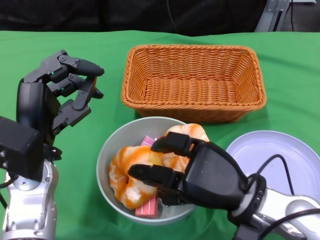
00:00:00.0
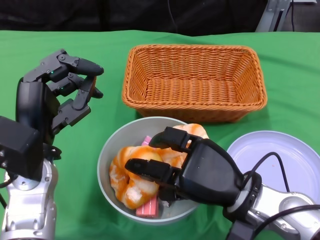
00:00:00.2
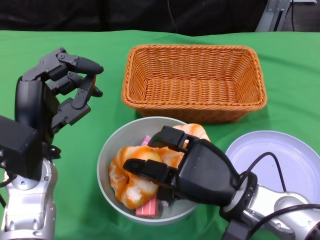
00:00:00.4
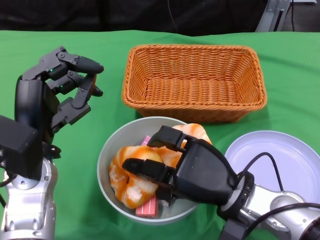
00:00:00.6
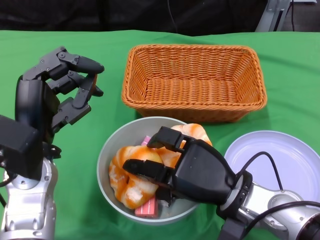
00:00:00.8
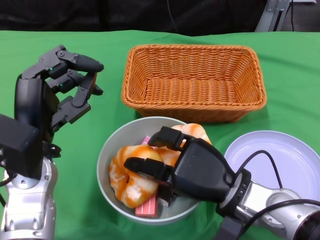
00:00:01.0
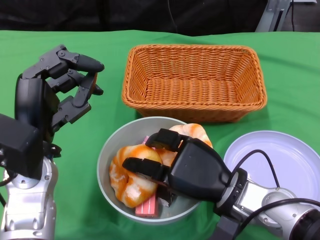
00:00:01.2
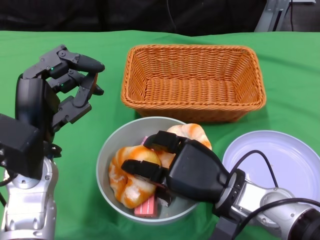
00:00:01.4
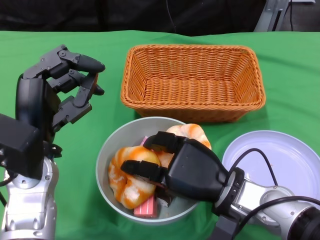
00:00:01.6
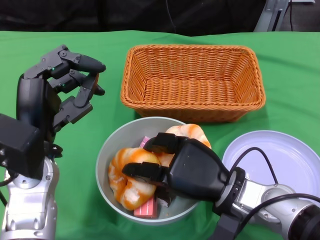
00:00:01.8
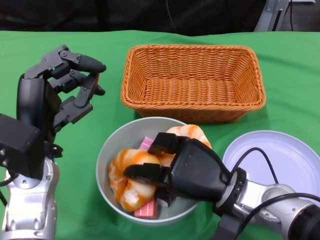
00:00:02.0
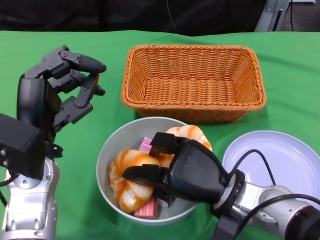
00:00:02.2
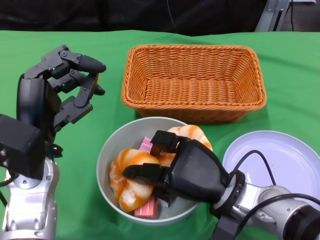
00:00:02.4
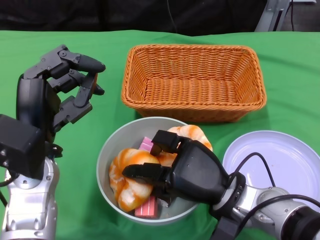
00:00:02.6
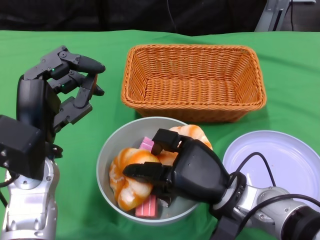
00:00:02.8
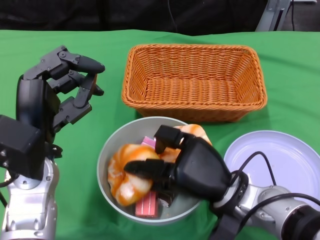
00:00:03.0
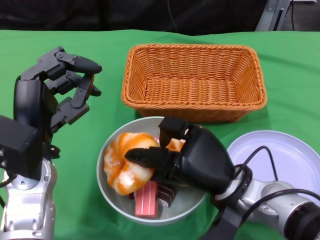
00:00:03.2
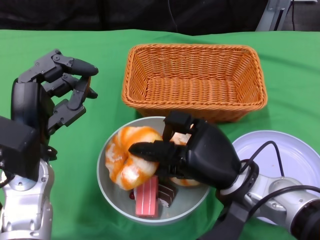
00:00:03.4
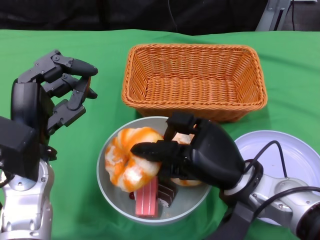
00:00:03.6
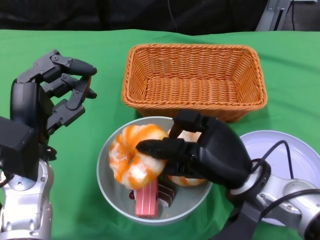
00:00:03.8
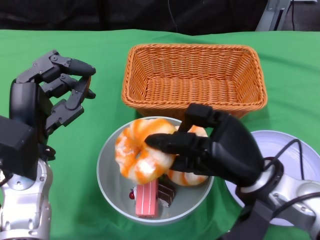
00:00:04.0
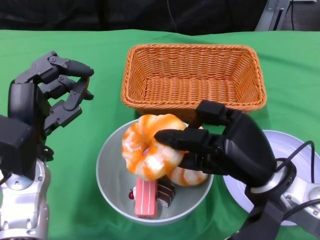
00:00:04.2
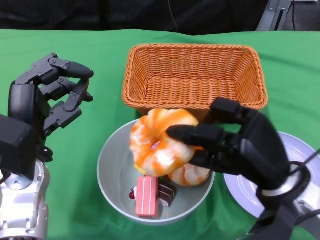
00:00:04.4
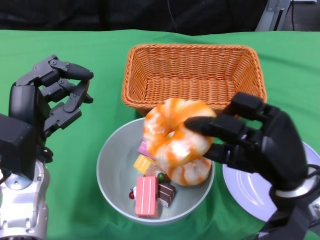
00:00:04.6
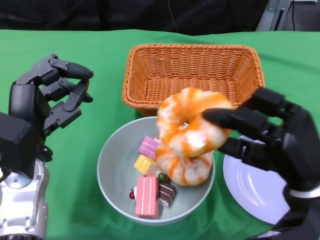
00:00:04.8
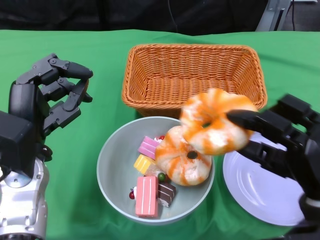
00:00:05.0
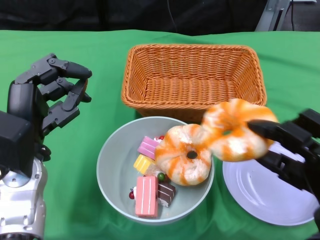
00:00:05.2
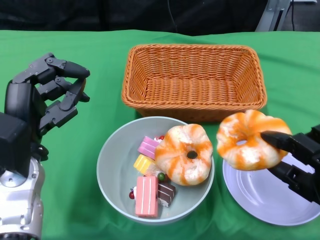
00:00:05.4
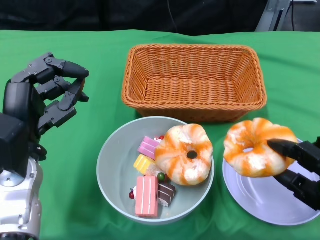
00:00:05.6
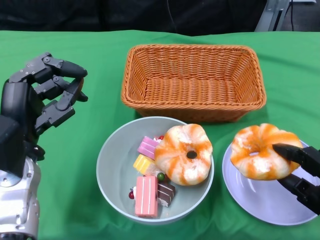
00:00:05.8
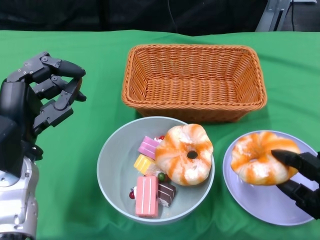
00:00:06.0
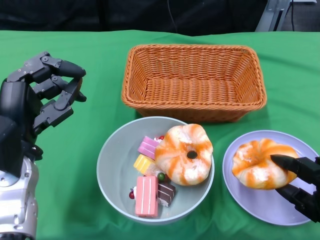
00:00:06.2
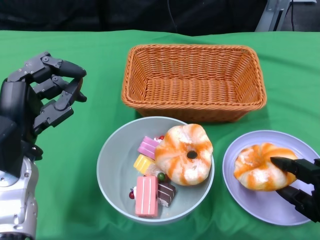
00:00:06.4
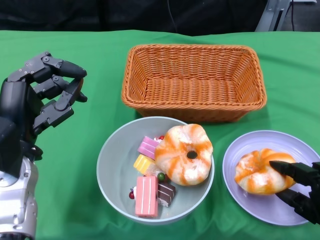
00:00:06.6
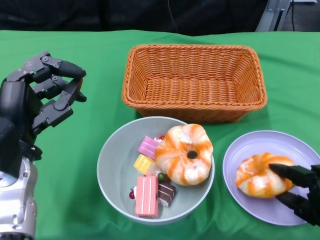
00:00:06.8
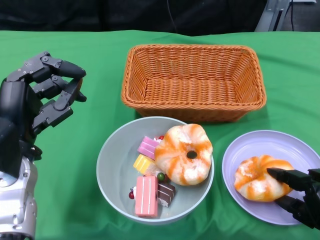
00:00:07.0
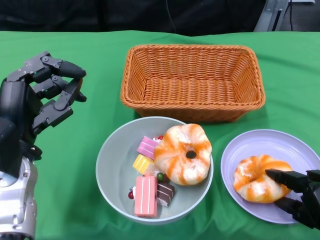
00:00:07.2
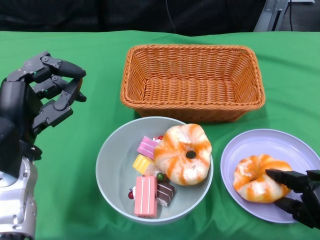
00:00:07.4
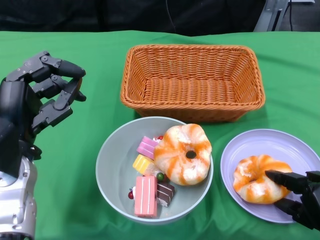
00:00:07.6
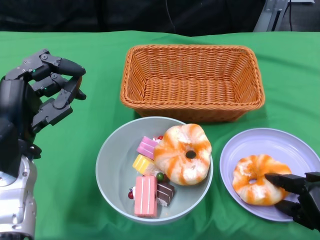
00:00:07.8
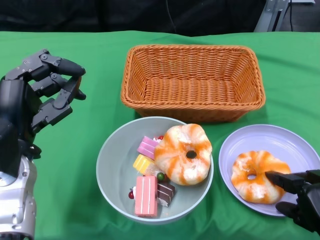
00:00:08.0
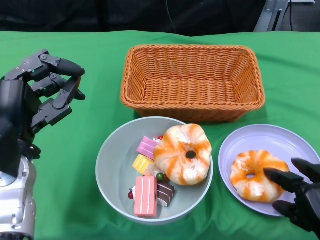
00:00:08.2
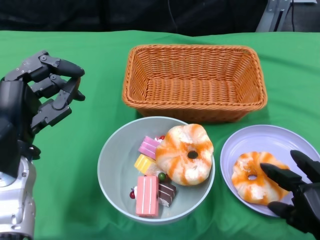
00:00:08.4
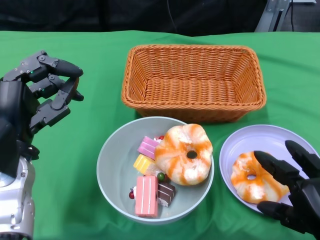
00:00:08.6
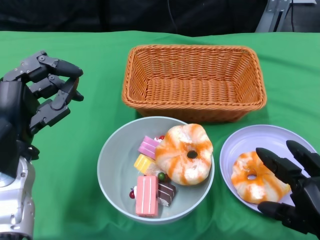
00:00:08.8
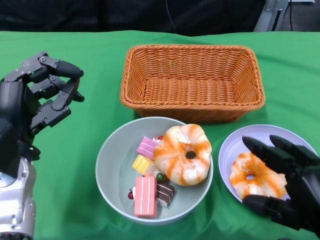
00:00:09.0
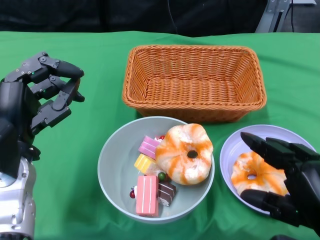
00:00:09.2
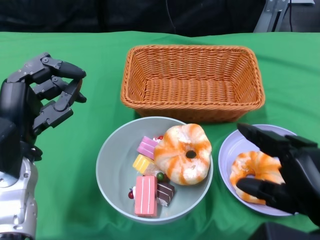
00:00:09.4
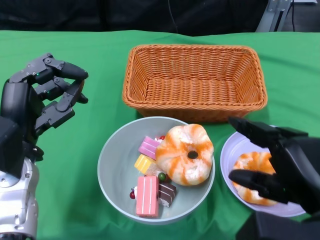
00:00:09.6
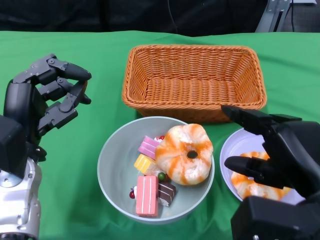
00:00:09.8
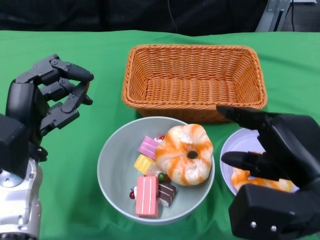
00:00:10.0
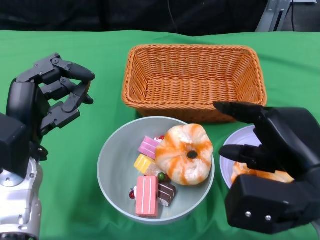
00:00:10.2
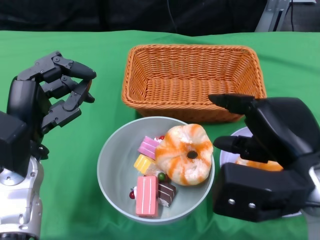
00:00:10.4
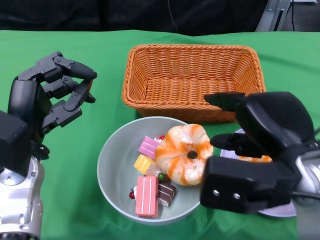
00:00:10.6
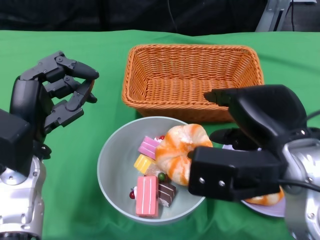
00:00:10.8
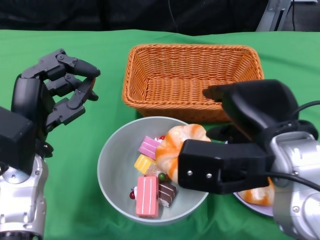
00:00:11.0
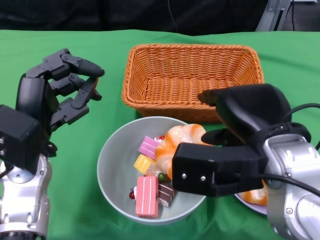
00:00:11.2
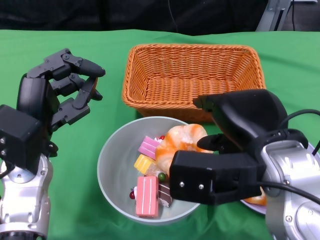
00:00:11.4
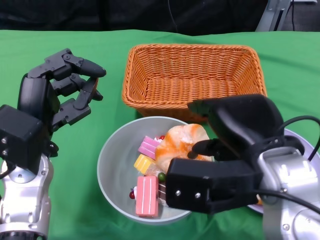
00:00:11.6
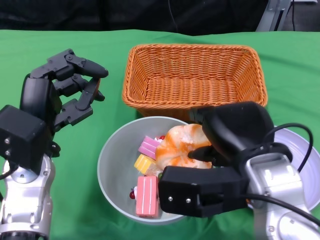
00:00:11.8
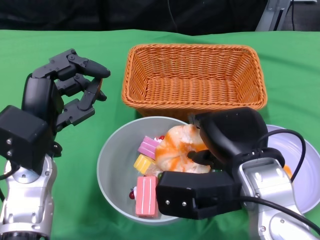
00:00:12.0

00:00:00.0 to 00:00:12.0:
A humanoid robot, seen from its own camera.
00:00:00.0 to 00:00:03.0: The hands move only a little.
00:00:03.0 to 00:00:04.4: The right hand heads to the right, covering some 5 cm.
00:00:04.4 to 00:00:06.0: The right hand shifts some 15 cm to the right, downward and backward.
00:00:07.6 to 00:00:09.0: The right hand heads upward, covering about 10 cm.
00:00:09.0 to 00:00:10.4: The right hand moves forward and upward, about 10 cm.
00:00:10.4 to 00:00:12.0: The right hand is displaced to the left by some 5 cm.

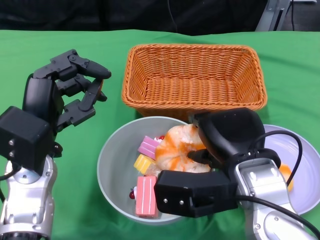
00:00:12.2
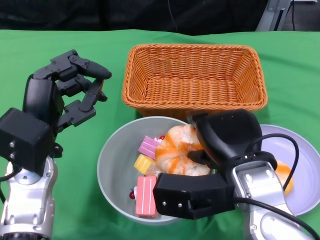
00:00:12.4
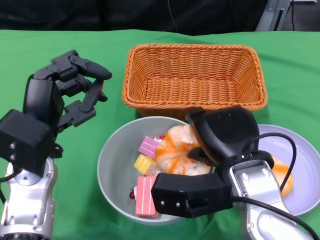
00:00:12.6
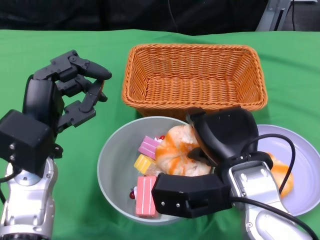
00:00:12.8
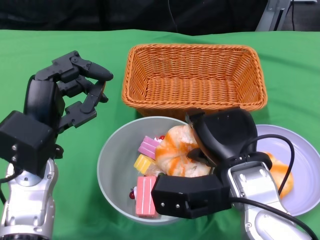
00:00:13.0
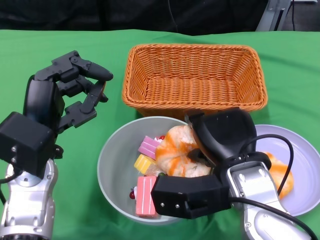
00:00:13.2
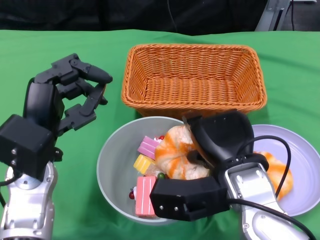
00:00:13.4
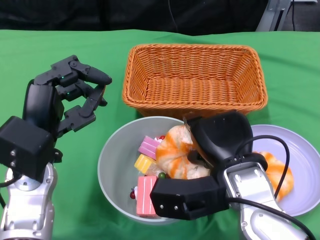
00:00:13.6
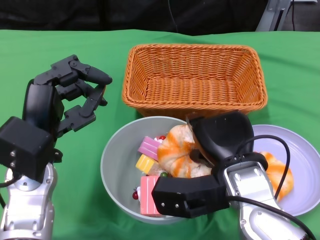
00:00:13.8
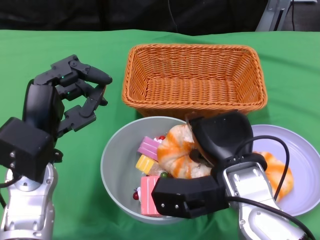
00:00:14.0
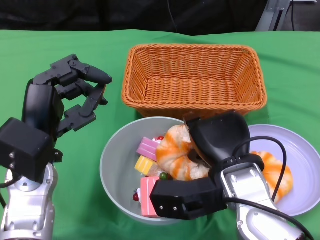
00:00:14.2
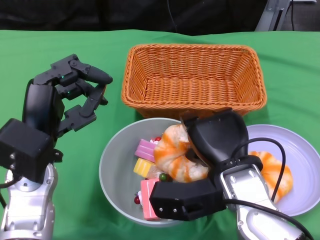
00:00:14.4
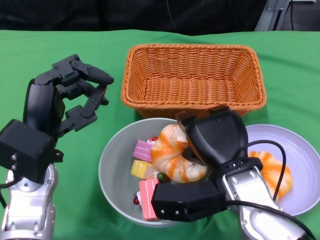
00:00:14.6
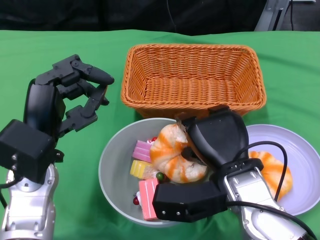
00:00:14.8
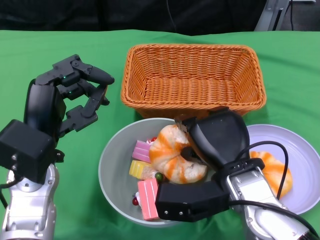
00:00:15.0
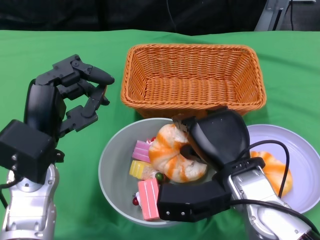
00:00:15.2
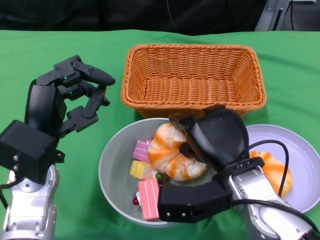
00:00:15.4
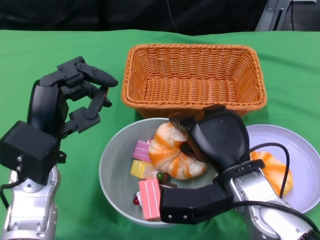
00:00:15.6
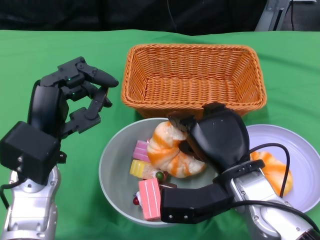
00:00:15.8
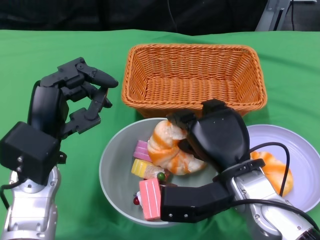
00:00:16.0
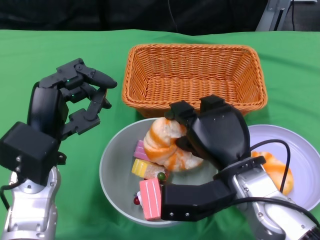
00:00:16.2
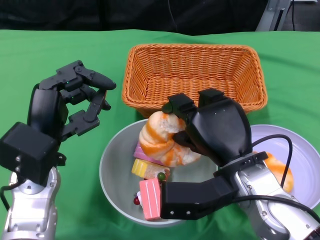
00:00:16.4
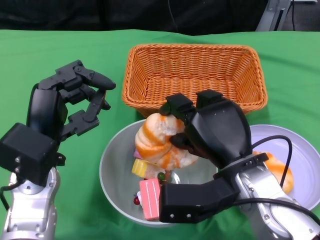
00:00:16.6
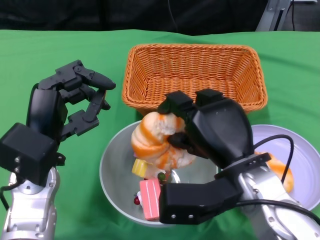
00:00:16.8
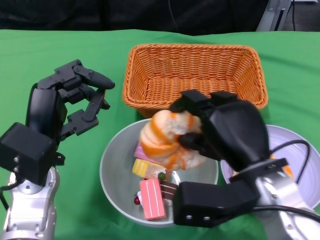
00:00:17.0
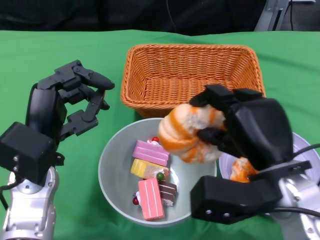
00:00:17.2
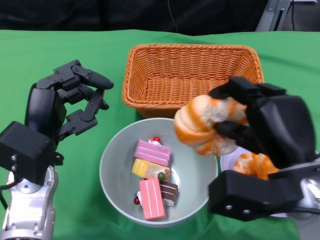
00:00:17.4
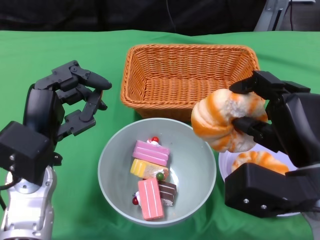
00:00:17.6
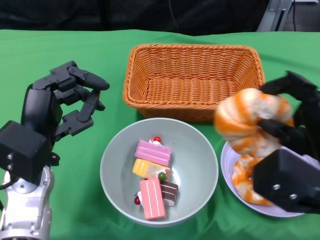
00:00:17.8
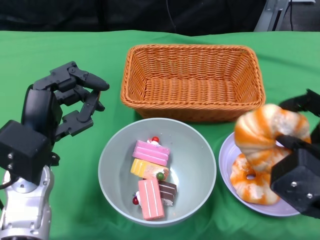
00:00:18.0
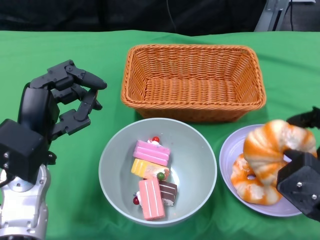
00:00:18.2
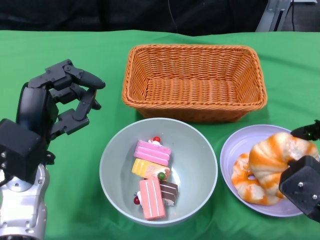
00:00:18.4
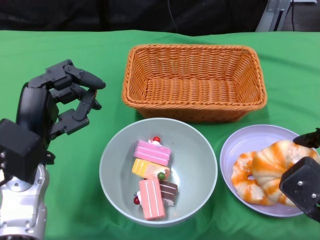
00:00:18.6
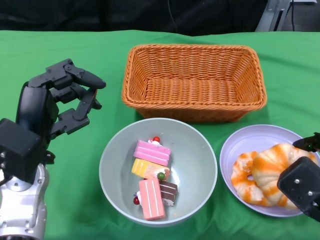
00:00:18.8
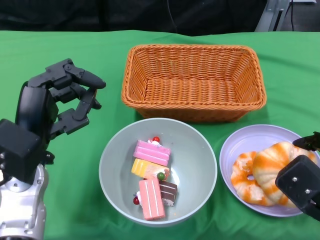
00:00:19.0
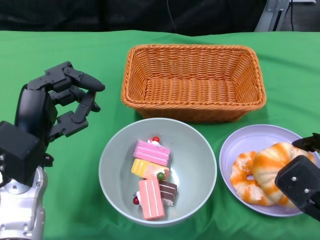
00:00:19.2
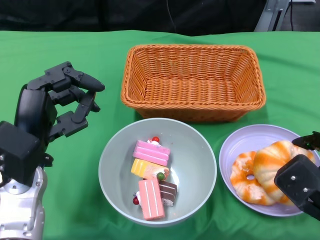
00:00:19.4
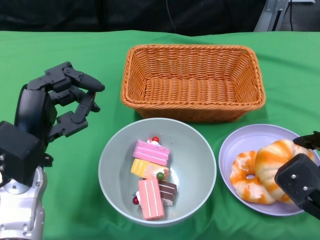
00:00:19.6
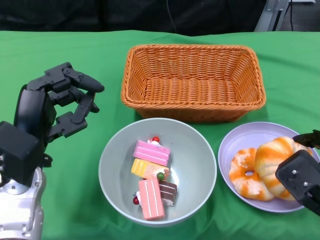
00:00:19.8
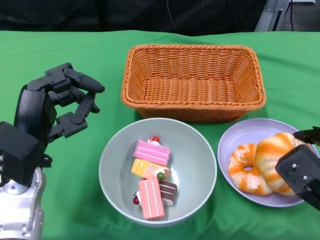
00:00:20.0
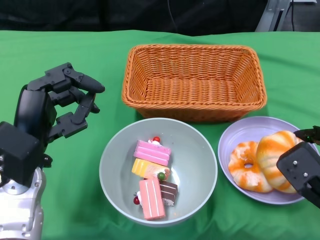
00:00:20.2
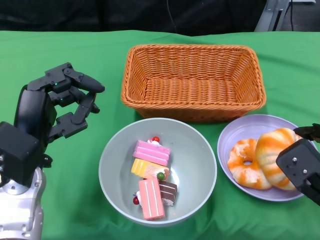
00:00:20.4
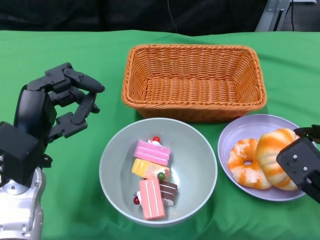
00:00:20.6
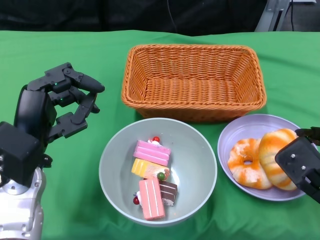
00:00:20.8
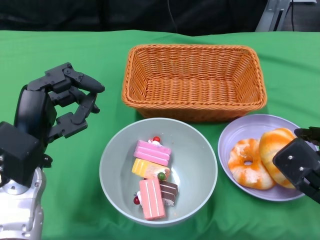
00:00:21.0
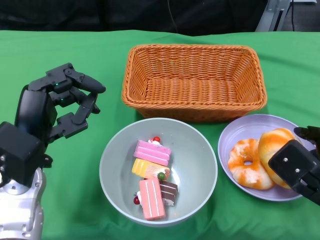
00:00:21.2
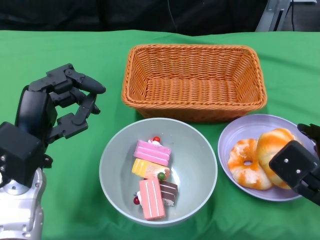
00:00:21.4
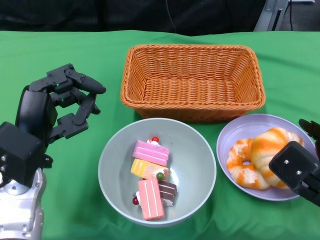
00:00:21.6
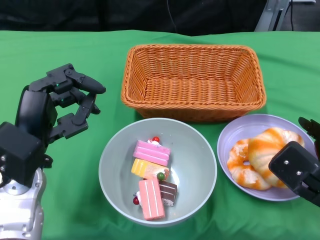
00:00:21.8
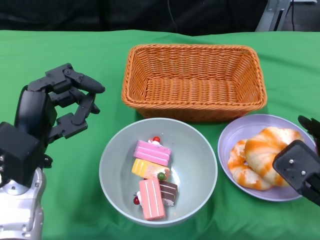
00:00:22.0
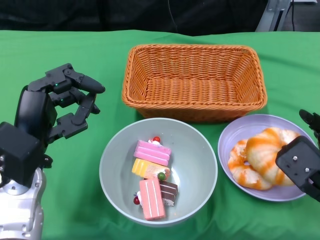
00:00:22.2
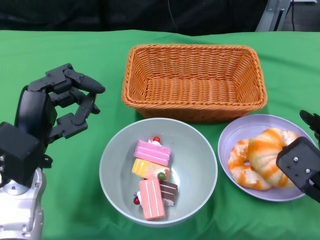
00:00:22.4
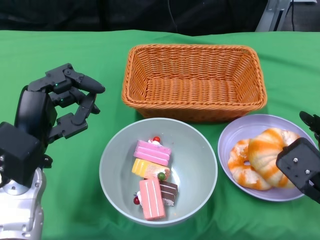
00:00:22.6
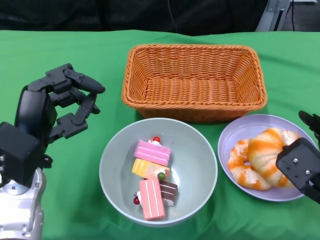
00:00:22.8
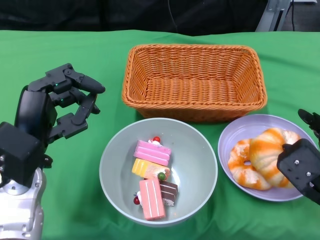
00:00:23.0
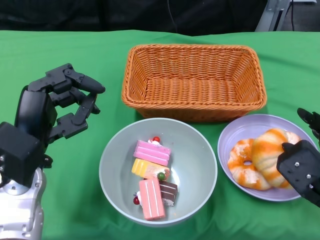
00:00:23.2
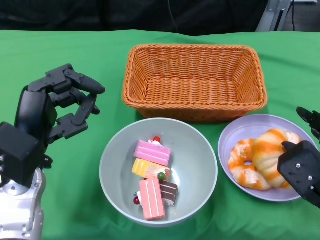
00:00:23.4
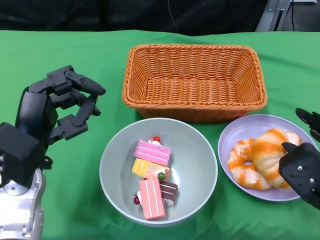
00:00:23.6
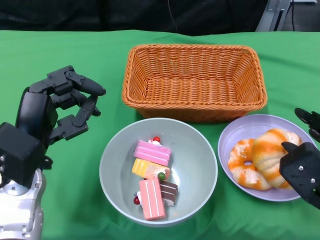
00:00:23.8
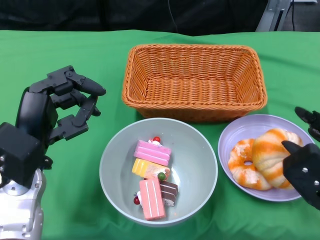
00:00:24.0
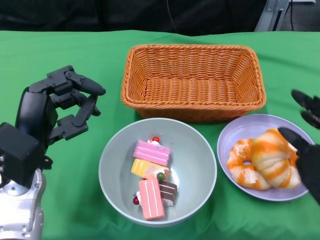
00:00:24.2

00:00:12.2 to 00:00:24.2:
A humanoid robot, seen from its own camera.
00:00:13.8 to 00:00:15.2: The hands stay close to where they were, moving slightly.
00:00:16.6 to 00:00:18.2: The right hand travels to the right by some 15 cm.
00:00:18.2 to 00:00:19.8: The right hand travels downward by approximately 5 cm.
00:00:19.8 to 00:00:22.6: The hands move only a little.
